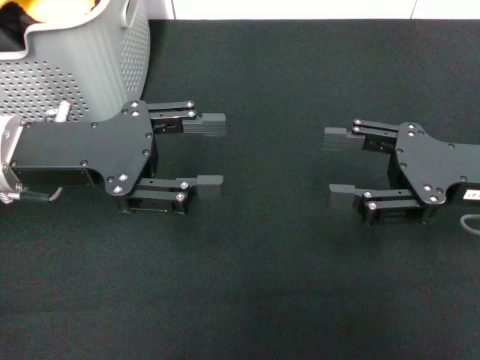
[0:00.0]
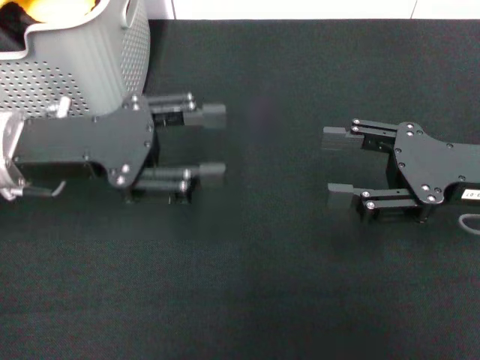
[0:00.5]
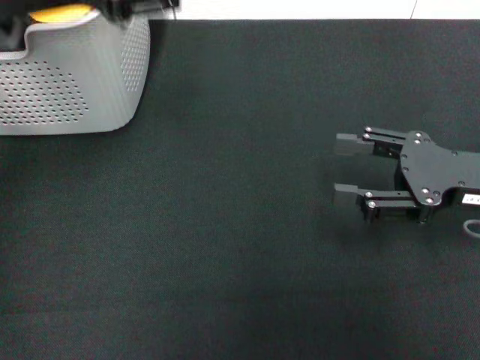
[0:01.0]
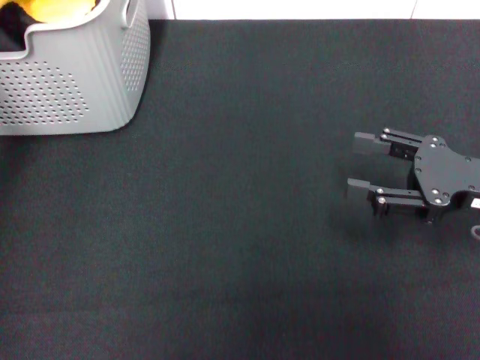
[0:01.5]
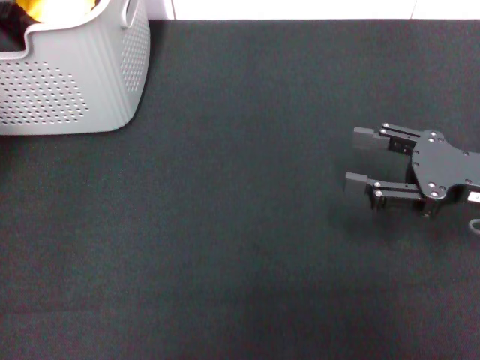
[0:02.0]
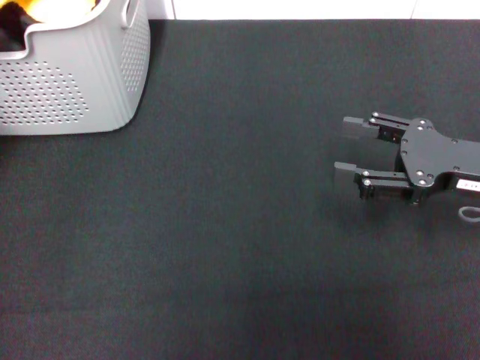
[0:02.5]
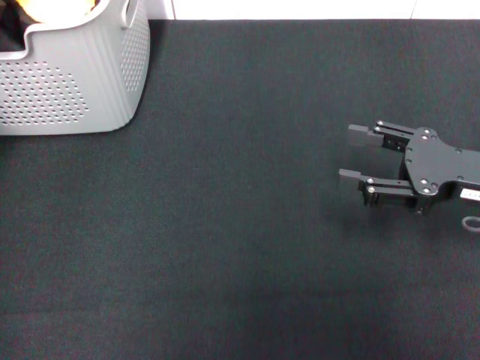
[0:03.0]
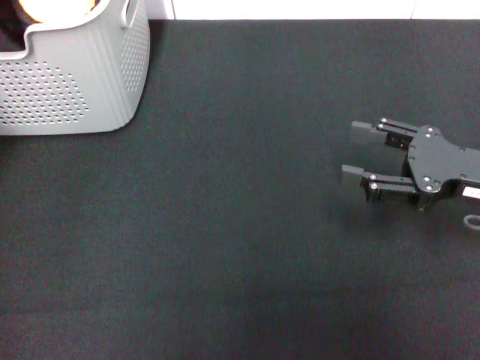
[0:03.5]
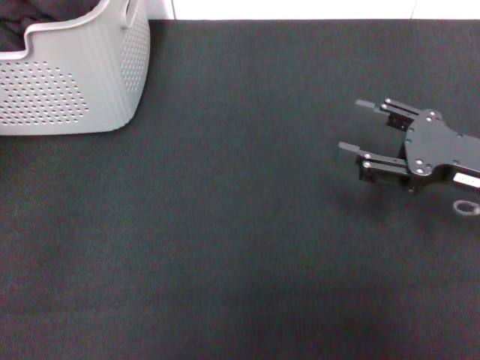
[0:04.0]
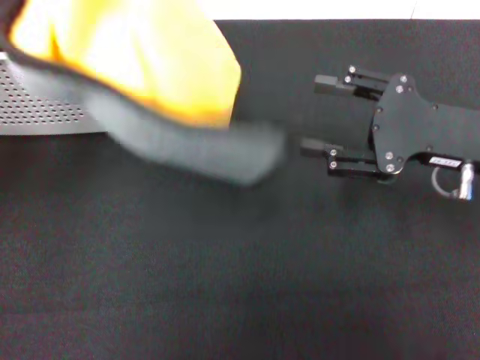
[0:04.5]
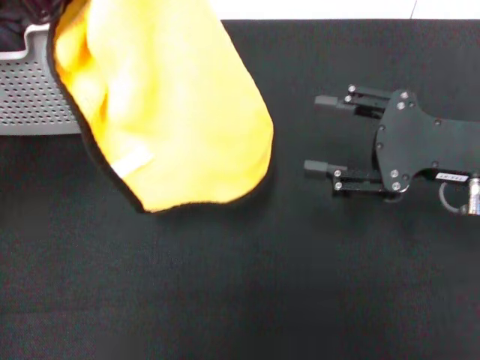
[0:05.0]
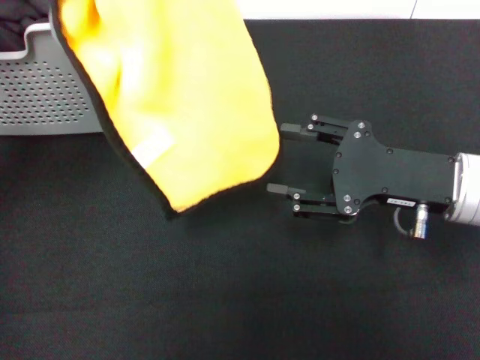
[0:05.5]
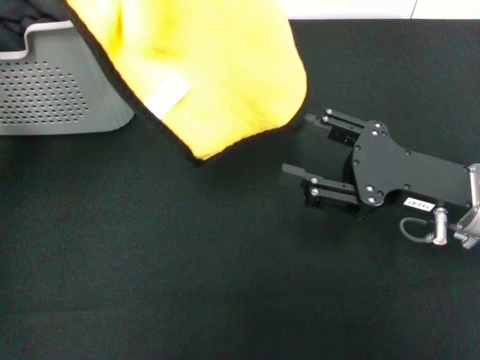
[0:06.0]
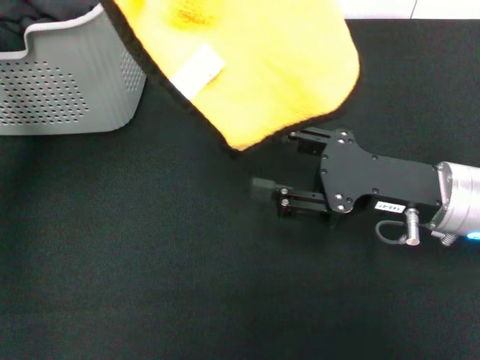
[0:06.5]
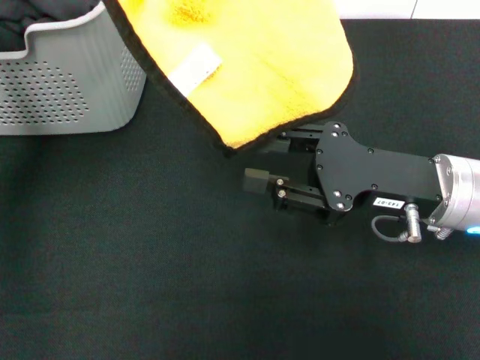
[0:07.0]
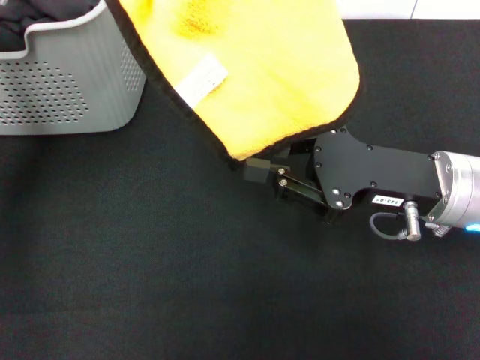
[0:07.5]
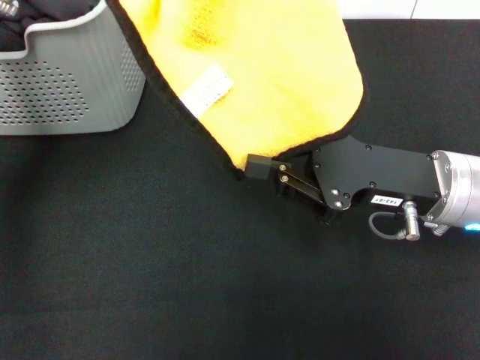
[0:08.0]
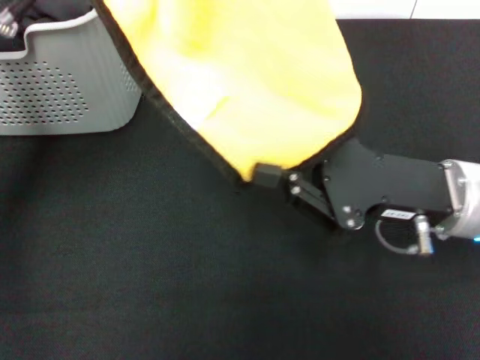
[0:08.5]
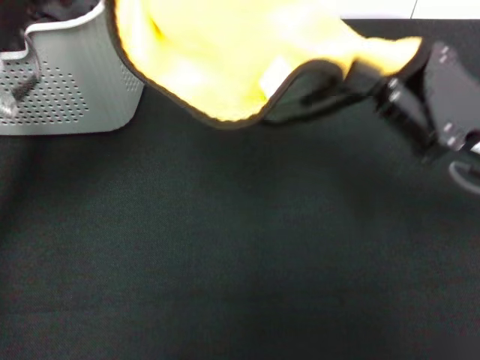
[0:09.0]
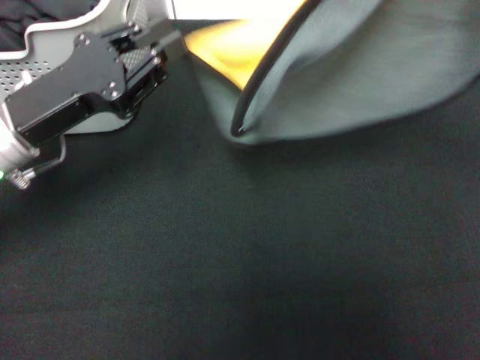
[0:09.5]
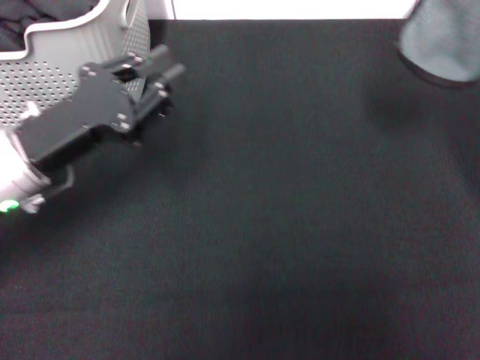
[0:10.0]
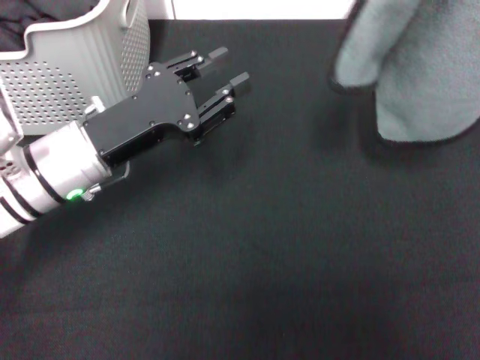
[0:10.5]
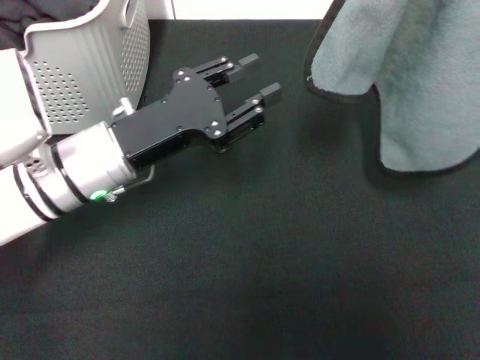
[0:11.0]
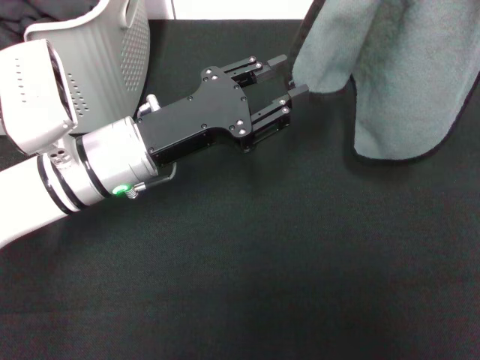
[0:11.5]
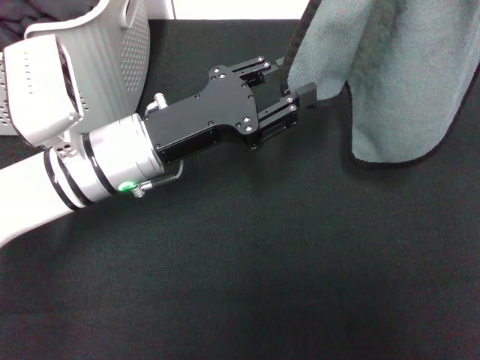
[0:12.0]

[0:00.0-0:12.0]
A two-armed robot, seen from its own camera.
Task of the whole recording: pick up the towel from the storage box and lay it flat on the black tablecloth.
Step, 0:00.0 to 0:03.0: Pick up a towel with the left gripper.
Step, 0:04.0 to 0:08.5: Spread the towel flat with the left gripper.
0:00.0 to 0:02.0: The left gripper is displaced upward and to the left by about 15 cm.
0:02.0 to 0:04.0: The left gripper ends up approximately 5 cm from where it was, and closes its fingers.
0:04.0 to 0:06.0: The right gripper moves to the left, some 5 cm, while the left gripper shifts roughly 5 cm to the right.
0:06.0 to 0:08.0: The right gripper closes.
0:08.0 to 0:10.0: The right gripper travels to the right and upward by about 15 cm. The left gripper travels downward by some 15 cm, and opens up.
0:10.0 to 0:12.0: The right gripper changes place by approximately 5 cm. The left gripper is displaced to the right by roughly 10 cm.

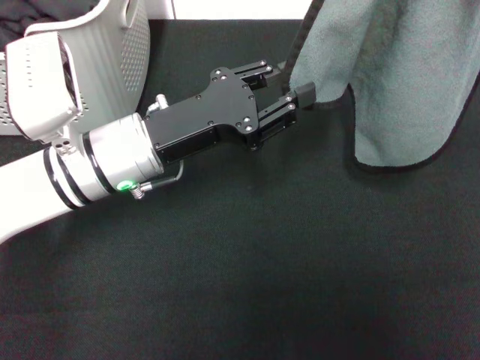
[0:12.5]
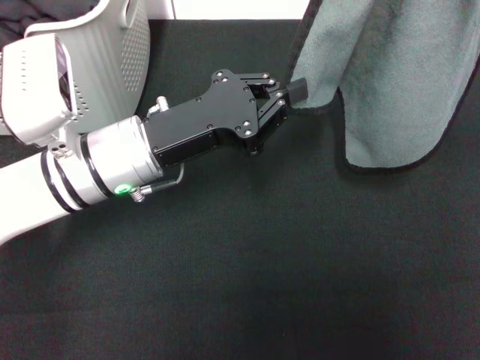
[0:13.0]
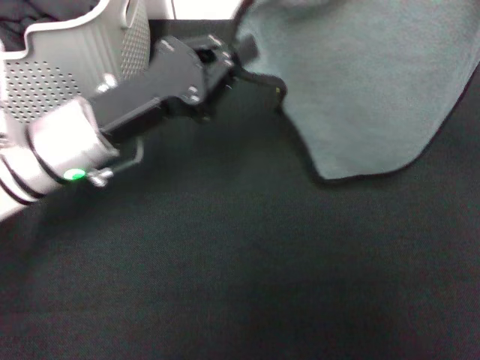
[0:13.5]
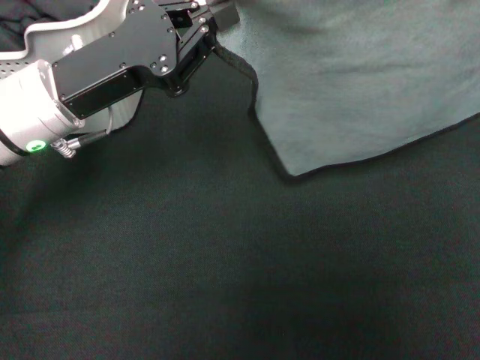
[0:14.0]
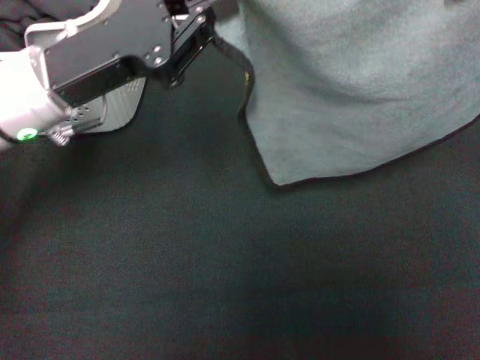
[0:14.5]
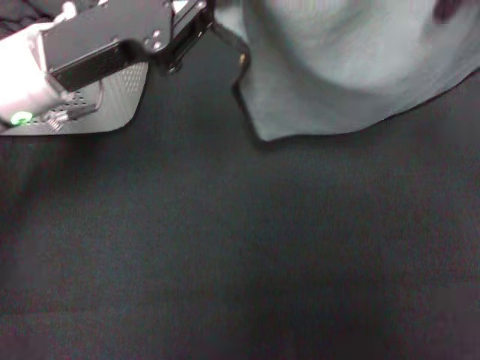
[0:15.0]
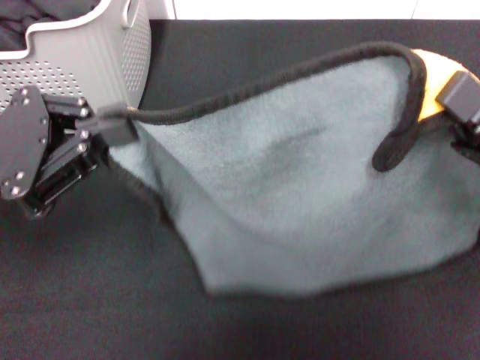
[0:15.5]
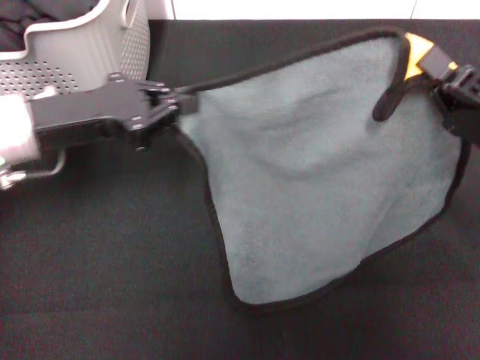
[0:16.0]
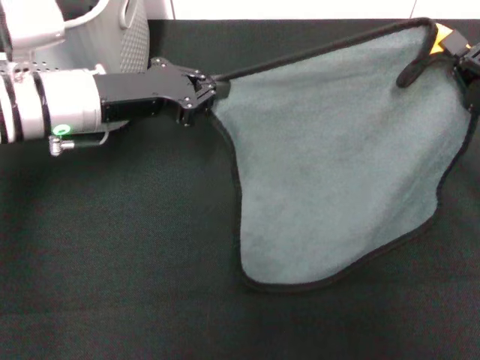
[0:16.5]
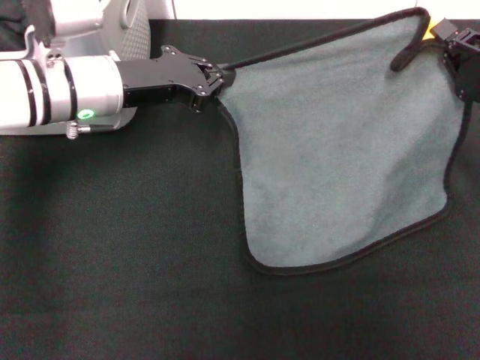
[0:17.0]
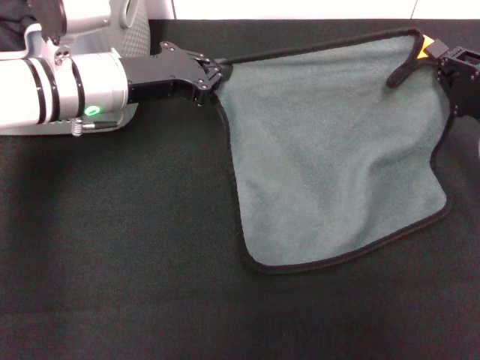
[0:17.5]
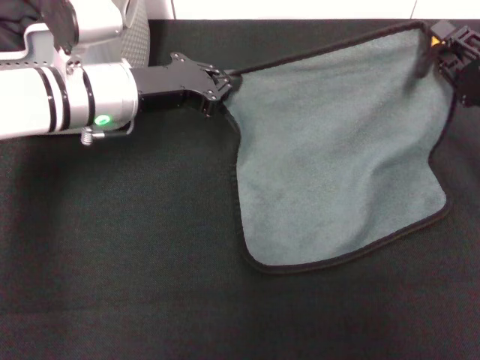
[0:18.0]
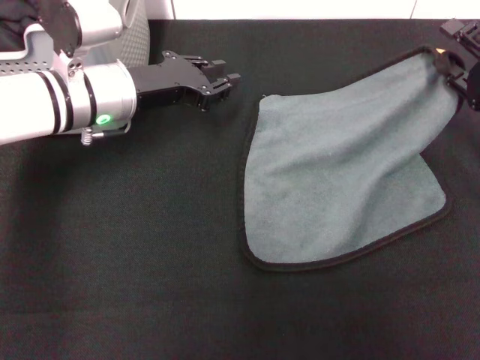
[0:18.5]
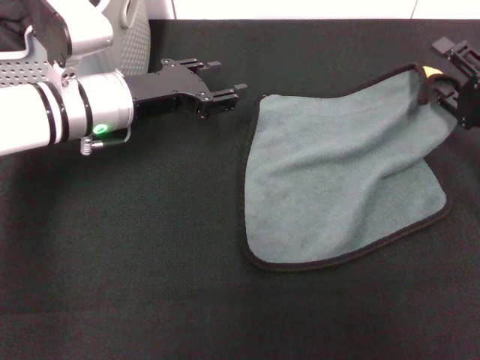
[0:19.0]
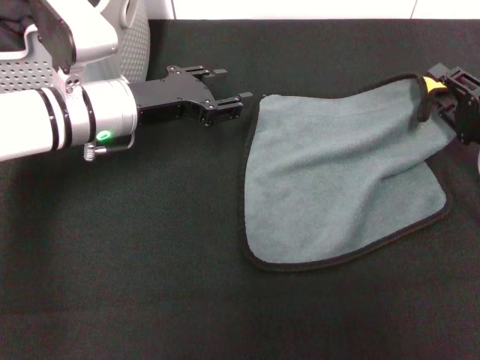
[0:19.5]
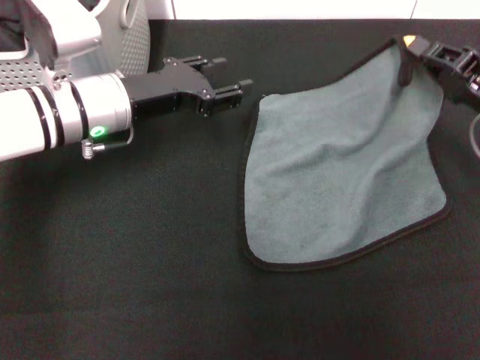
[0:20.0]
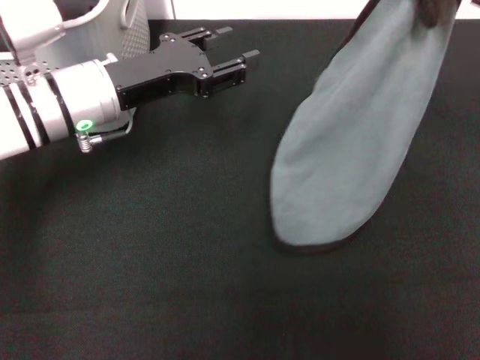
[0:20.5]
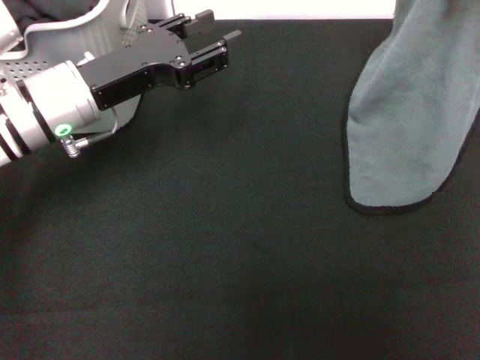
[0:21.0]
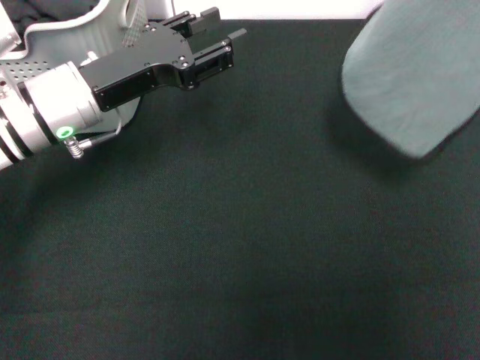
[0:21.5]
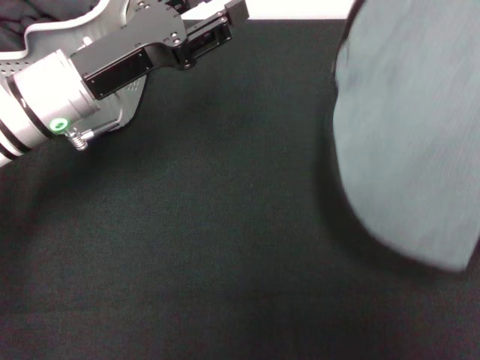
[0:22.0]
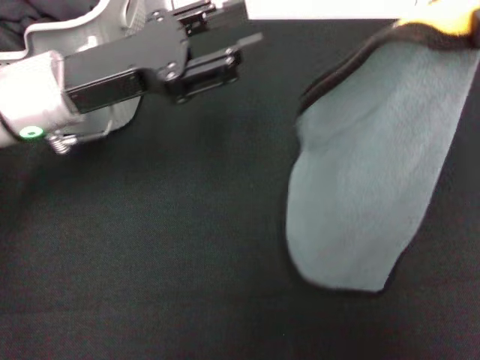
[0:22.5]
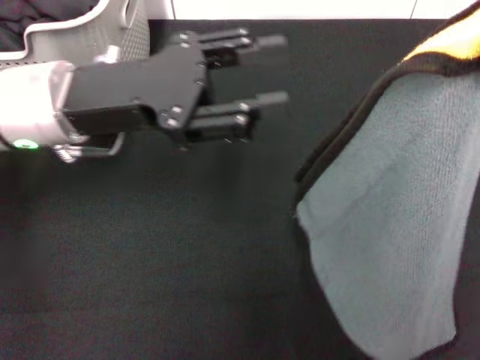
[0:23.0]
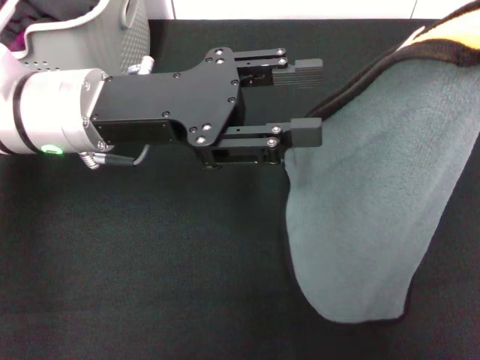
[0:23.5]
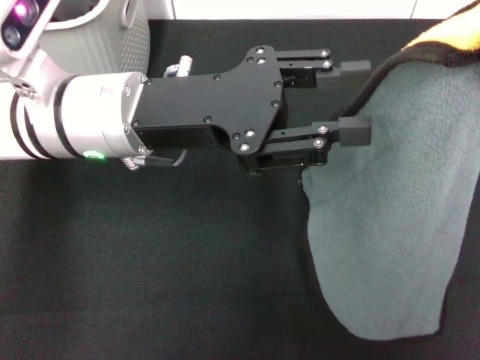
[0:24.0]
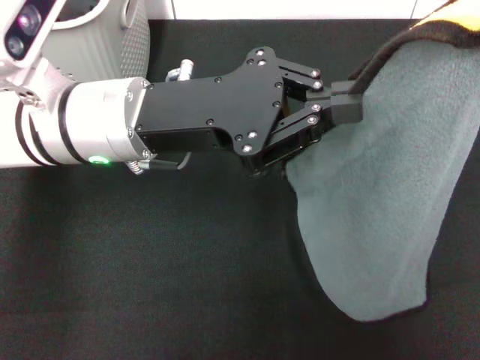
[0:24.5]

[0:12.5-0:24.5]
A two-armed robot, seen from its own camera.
Task of the whole recording: pick up the towel from the storage box and lay it flat on the black tablecloth.
0:12.5 to 0:14.5: The left gripper is displaced upward and to the left by about 10 cm, and closes. Meanwhile the right gripper shifts by roughly 5 cm.
0:14.5 to 0:16.5: The right gripper moves downward, roughly 10 cm, and moves approximately 10 cm backward and comes back. The left gripper goes backward and returns, roughly 10 cm each way.
0:16.5 to 0:18.5: The right gripper ends up some 5 cm from where it was, and opens its fingers.
0:18.5 to 0:20.5: The right gripper is displaced upward by about 15 cm, and closes its fingers. The left gripper opens up.
0:20.5 to 0:22.5: The right gripper moves upward, about 15 cm.
0:22.5 to 0:24.5: The left gripper is displaced to the right by roughly 5 cm, and closes up.

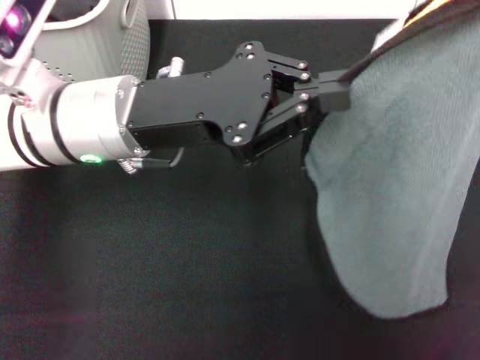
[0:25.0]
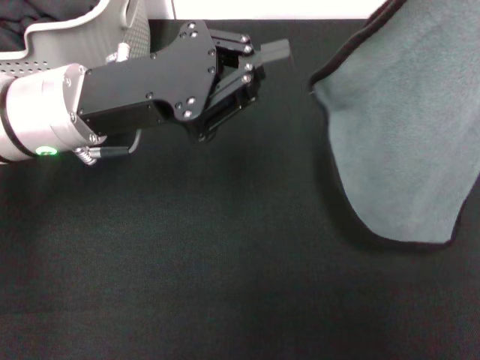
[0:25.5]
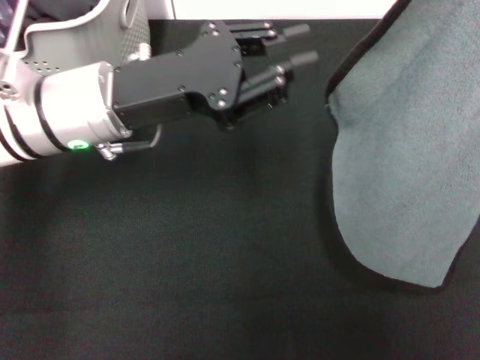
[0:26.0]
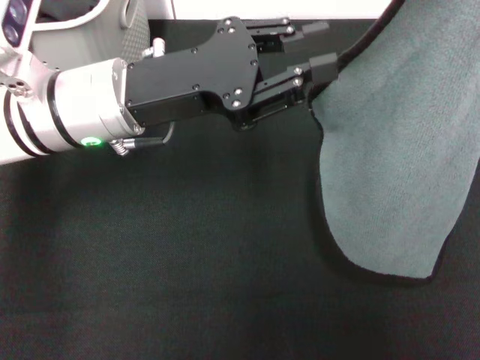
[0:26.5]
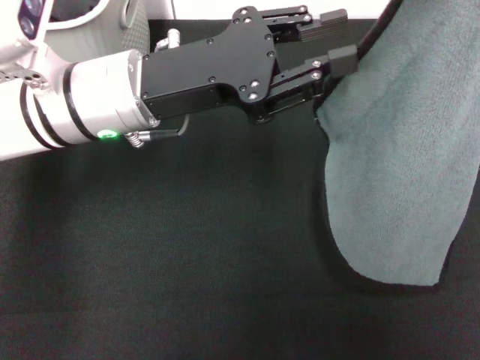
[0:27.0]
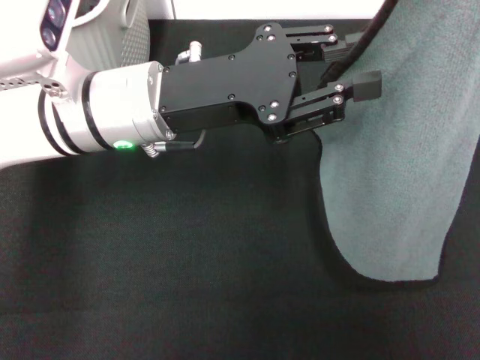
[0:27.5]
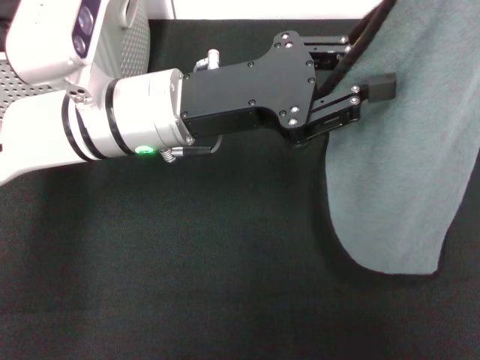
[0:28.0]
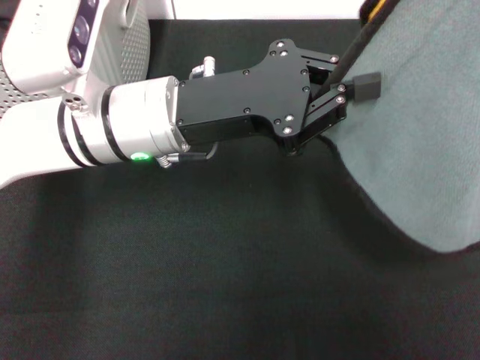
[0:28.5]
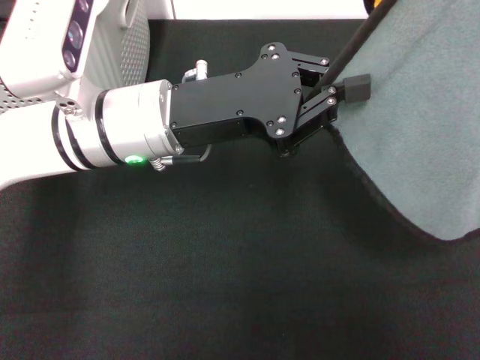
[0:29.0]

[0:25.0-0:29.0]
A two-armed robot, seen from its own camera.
Task of the whole recording: pick up the towel from the storage box and lay it flat on the black tablecloth.
0:25.0 to 0:27.0: The left gripper opens up.
0:27.0 to 0:29.0: The left gripper closes its fingers.
